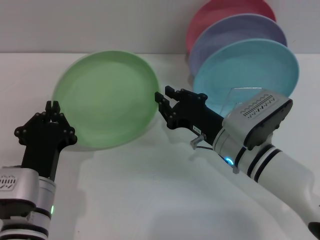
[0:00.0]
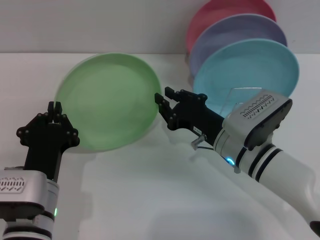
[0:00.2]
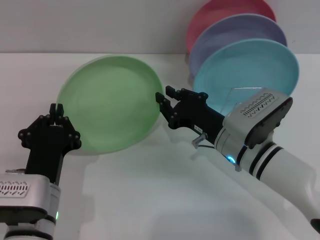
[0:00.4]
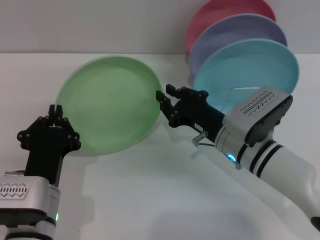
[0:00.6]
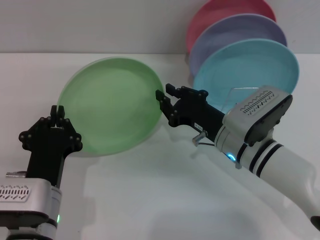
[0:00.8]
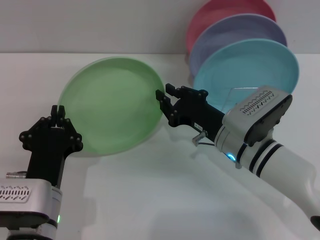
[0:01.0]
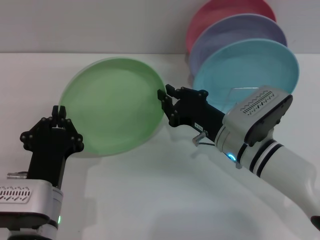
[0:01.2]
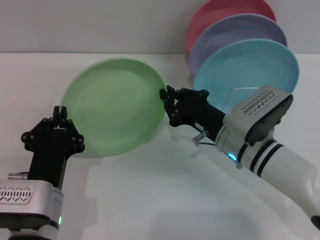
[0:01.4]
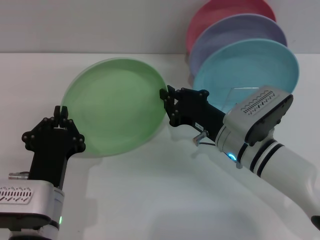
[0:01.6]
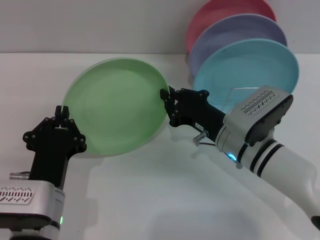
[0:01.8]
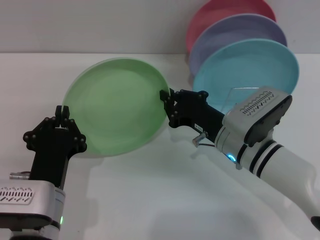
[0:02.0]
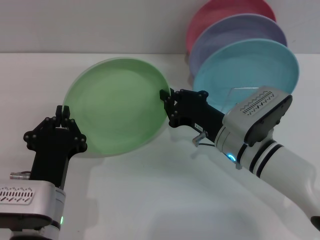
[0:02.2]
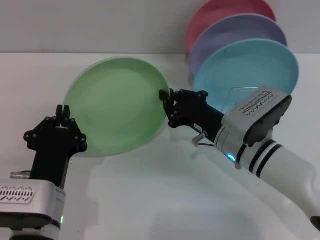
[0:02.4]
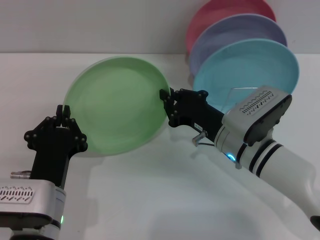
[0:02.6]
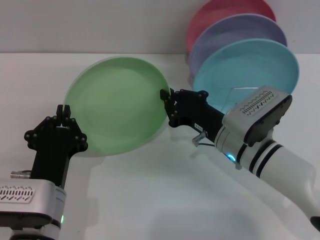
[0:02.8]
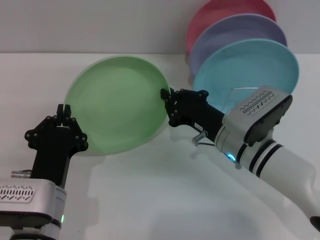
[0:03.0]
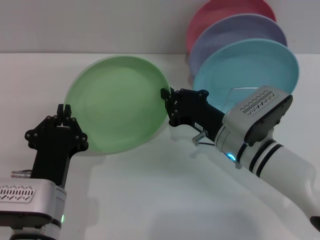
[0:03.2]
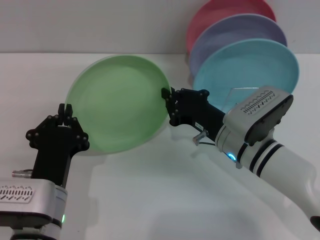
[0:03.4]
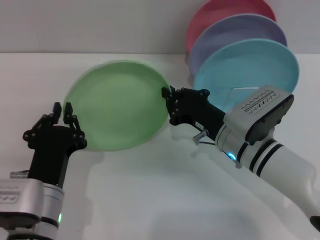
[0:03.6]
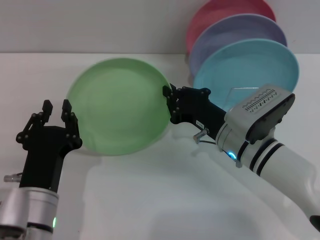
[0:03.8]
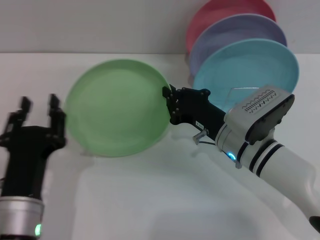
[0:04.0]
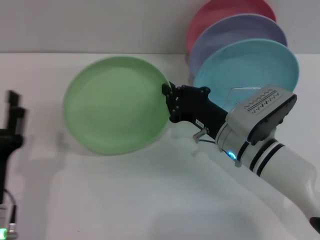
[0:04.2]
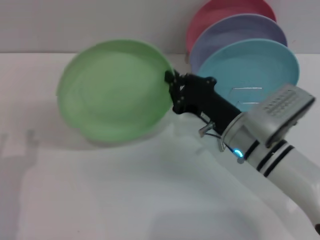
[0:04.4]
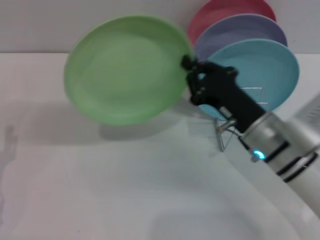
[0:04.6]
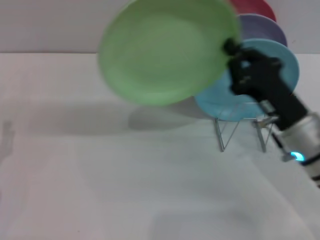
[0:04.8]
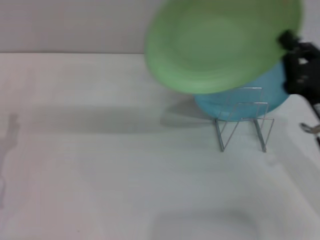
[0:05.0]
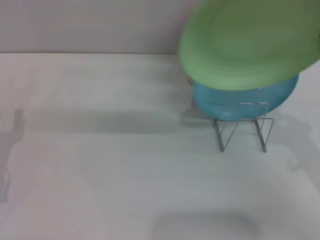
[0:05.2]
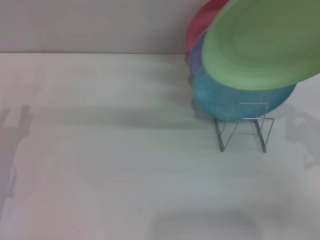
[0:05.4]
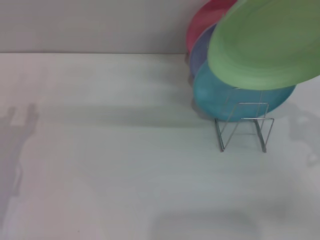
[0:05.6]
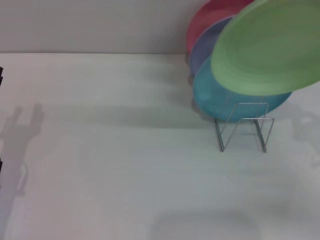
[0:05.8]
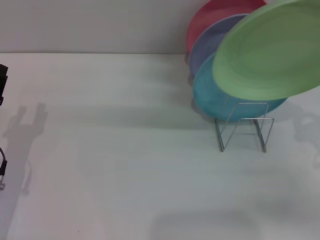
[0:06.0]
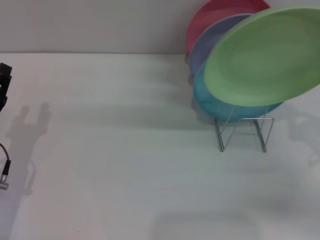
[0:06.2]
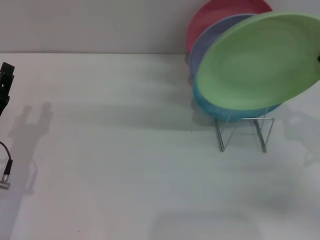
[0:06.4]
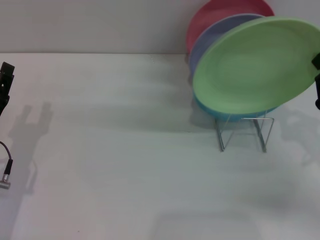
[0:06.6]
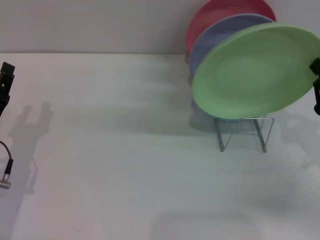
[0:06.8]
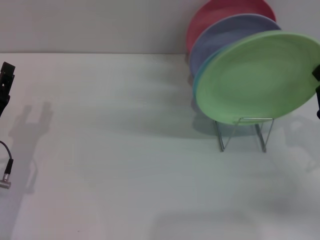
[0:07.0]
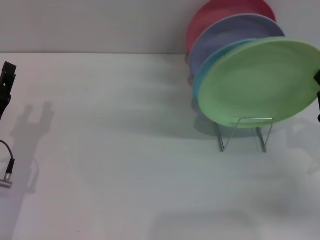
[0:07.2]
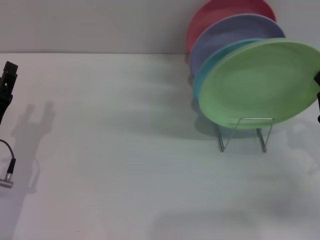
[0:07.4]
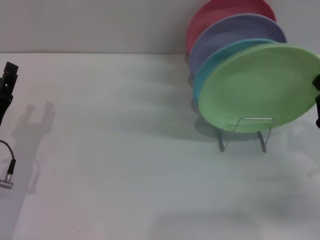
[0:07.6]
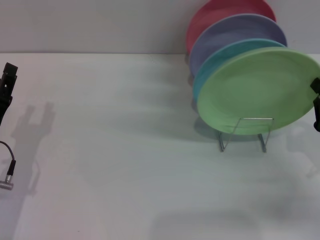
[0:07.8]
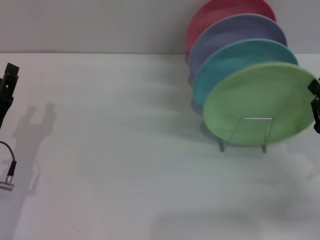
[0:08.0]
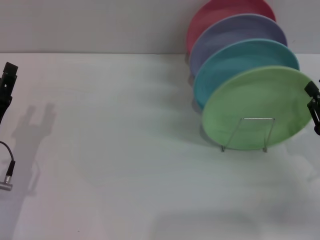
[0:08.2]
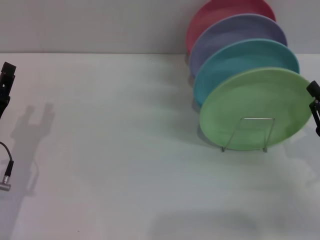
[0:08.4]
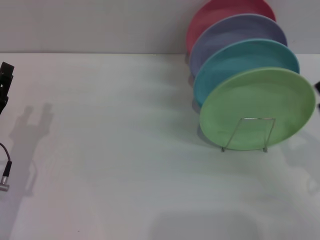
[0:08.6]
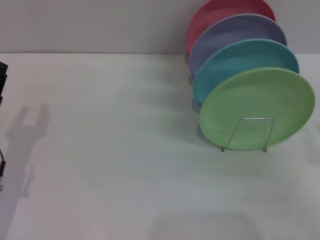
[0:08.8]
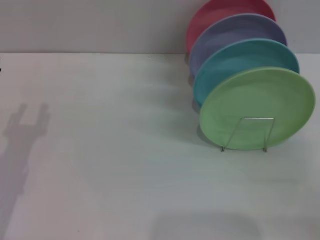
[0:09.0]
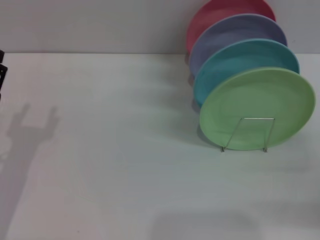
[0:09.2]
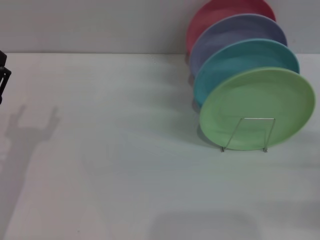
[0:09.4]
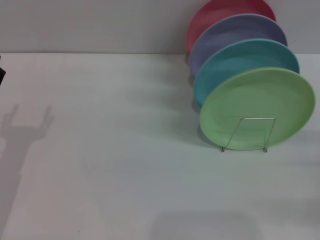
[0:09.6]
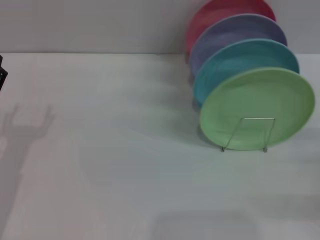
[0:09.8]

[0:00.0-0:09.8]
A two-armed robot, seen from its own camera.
Task of the whole recording: Grip the plate with one hand, pass it to the other, then set it on the shelf.
Step, 0:00.0 to 0:03.6: Pass the plate from the left gripper to the right gripper.
Step, 0:03.8 to 0:08.2: Place the plate on the shelf with the right gripper.
0:00.0 to 0:01.4: The grippers stay close to where they were, moving slightly.
0:01.4 to 0:02.8: Both grippers stay put.
0:02.8 to 0:04.2: The left gripper travels to the left by roughly 5 cm, and opens.
0:04.2 to 0:05.6: The left gripper heads forward and to the left, covering some 10 cm. The right gripper heads to the right and backward, covering approximately 20 cm.
0:05.6 to 0:07.0: The grippers make only small movements.
0:07.0 to 0:08.4: The right gripper opens.
0:08.4 to 0:09.8: The right gripper travels to the right by approximately 5 cm, and opens its fingers.
